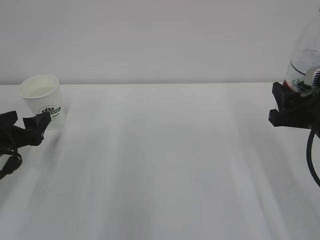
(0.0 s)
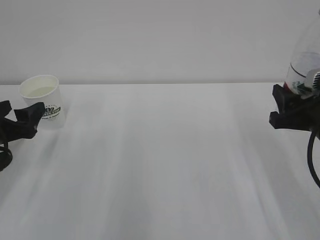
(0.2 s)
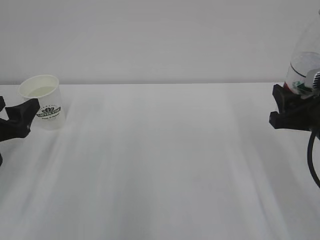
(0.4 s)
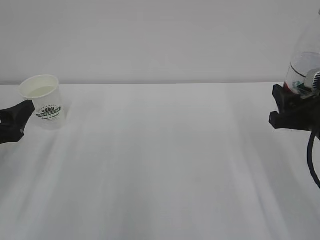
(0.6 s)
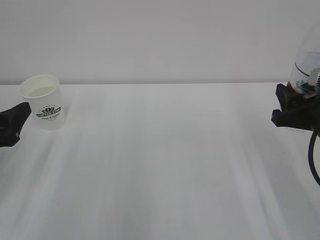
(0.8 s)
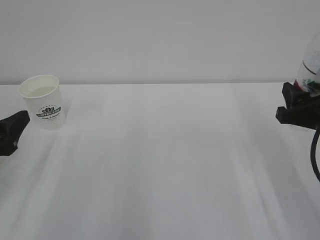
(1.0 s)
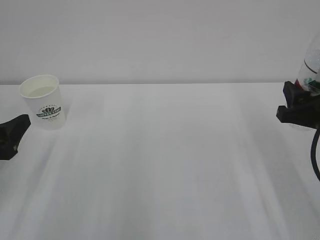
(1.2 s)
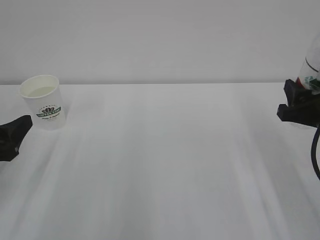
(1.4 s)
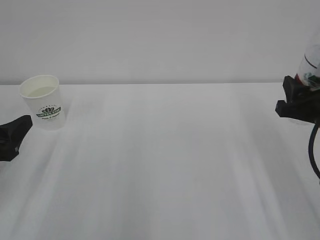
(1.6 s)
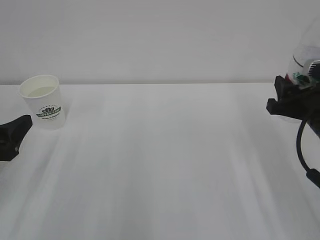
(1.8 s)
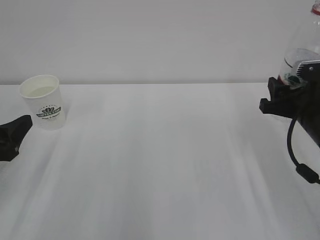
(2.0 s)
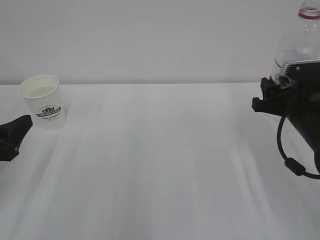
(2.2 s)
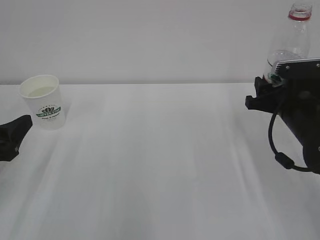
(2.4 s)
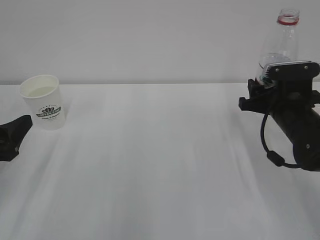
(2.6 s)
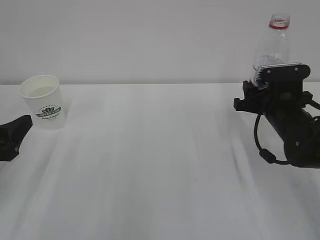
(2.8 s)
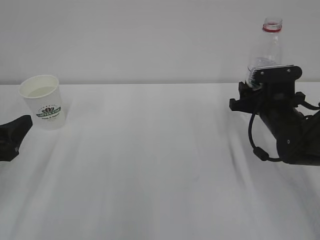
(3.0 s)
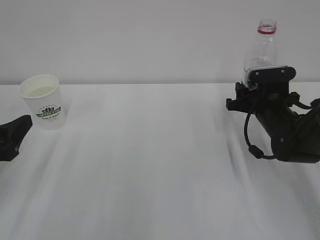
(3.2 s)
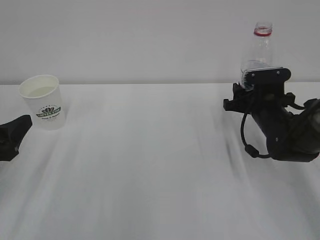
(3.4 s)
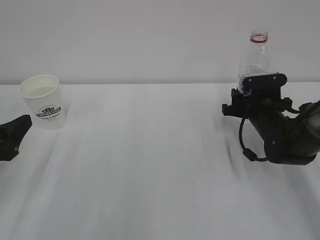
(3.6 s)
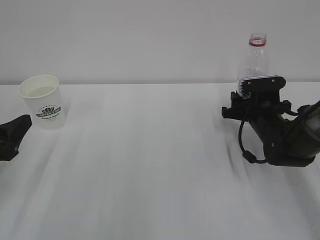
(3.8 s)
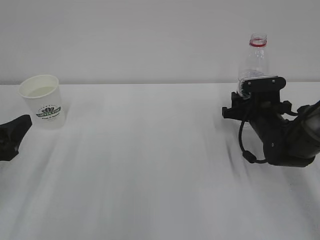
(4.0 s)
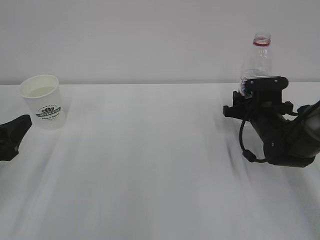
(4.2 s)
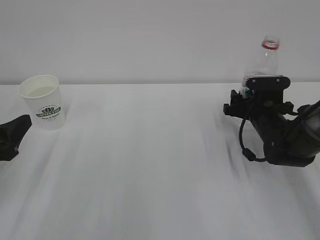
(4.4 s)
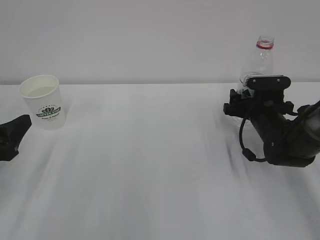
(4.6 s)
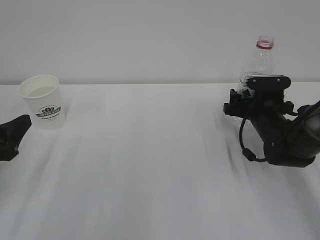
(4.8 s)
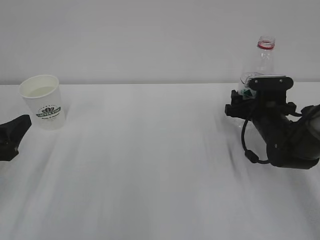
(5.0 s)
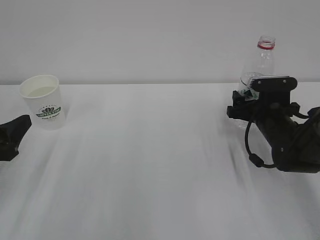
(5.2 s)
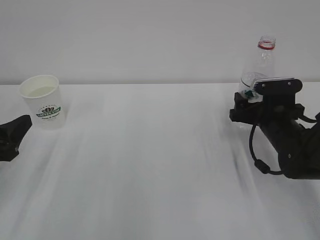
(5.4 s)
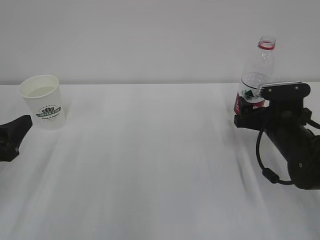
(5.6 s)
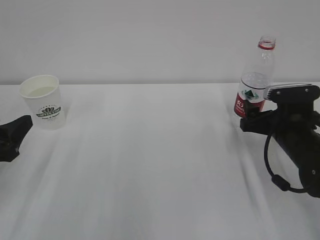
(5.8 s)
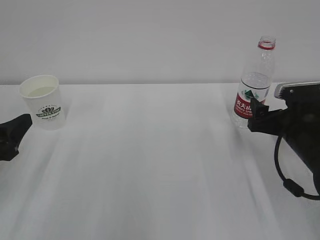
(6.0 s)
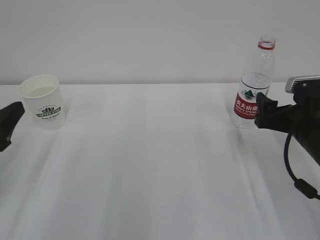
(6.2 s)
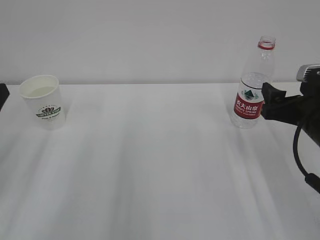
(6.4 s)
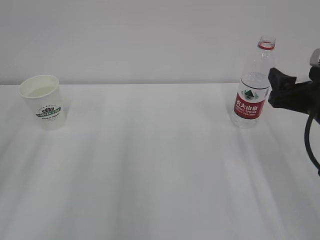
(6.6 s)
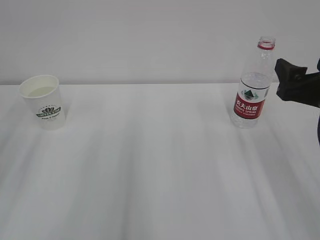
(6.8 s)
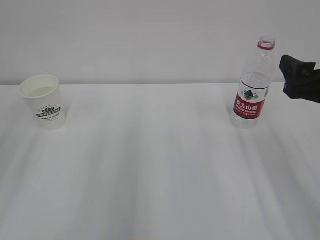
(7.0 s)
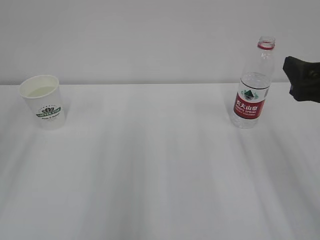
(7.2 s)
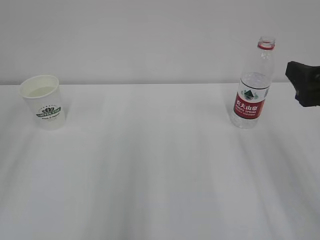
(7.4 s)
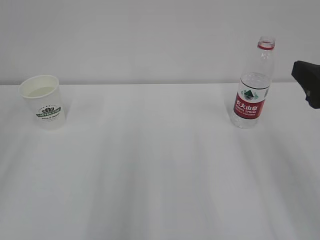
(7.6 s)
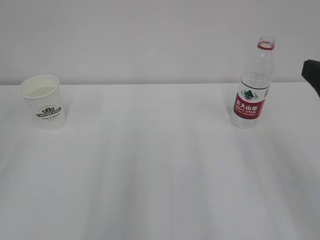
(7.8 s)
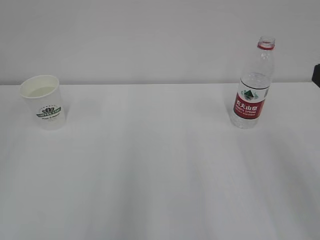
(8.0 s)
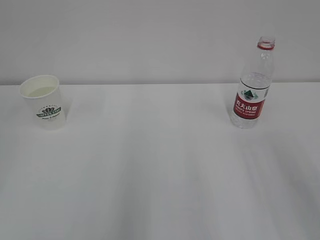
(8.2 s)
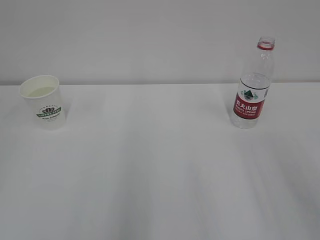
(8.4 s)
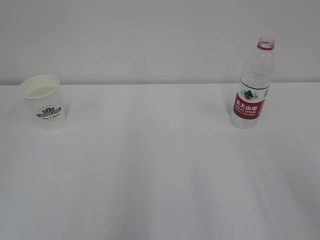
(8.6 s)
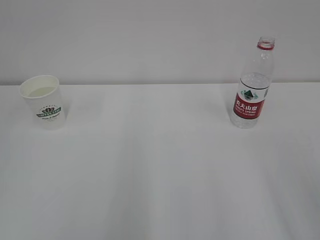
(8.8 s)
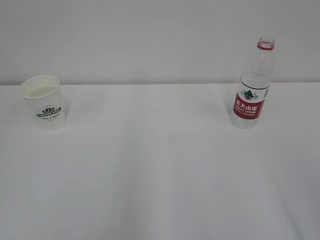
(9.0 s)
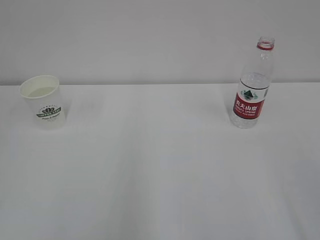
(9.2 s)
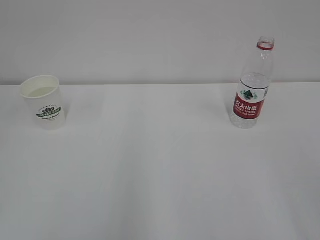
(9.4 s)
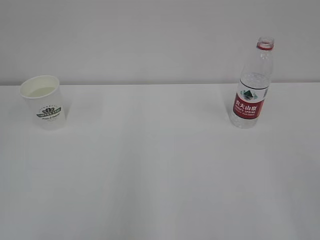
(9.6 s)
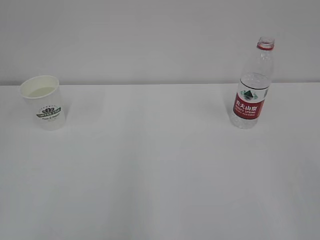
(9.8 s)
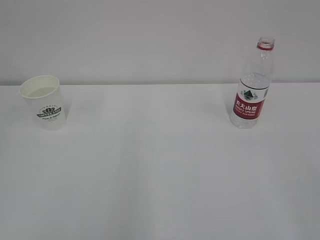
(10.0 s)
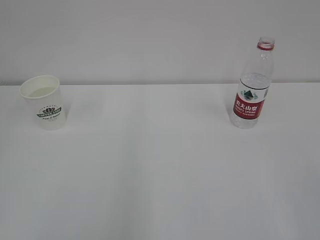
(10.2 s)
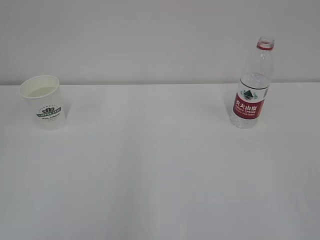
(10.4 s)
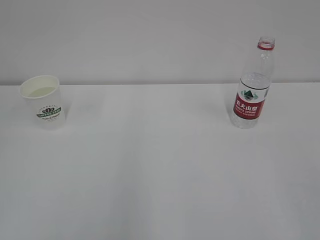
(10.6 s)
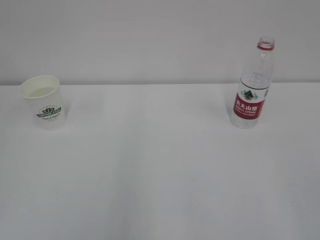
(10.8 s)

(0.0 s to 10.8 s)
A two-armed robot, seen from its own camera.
0.0 s - 1.6 s: The left gripper is displaced backward by some 5 cm.
1.6 s - 3.0 s: The right gripper shifts some 15 cm forward and downward.
3.0 s - 4.6 s: The right gripper opens its fingers.
4.6 s - 6.2 s: The right gripper goes roughly 10 cm backward and upward.
6.2 s - 7.8 s: The two grippers go roughly 15 cm upward and backward.

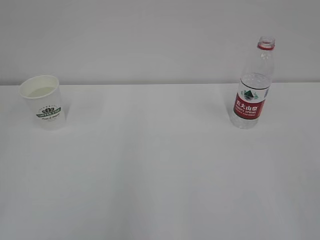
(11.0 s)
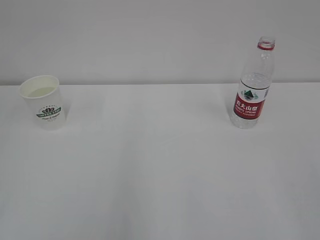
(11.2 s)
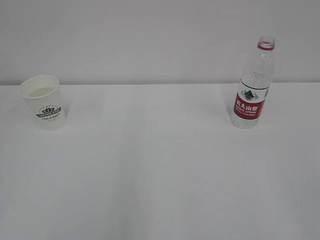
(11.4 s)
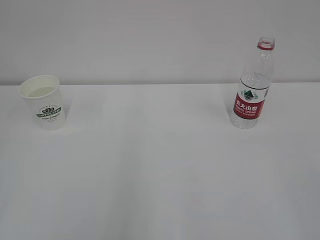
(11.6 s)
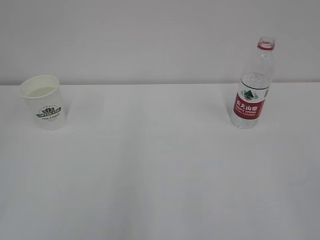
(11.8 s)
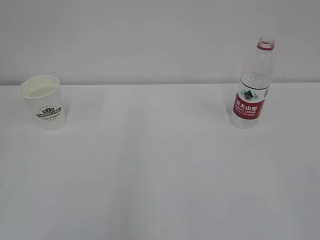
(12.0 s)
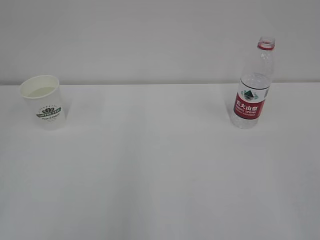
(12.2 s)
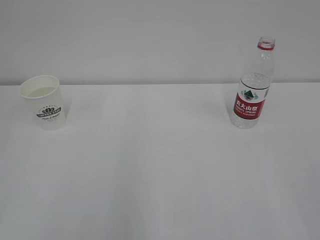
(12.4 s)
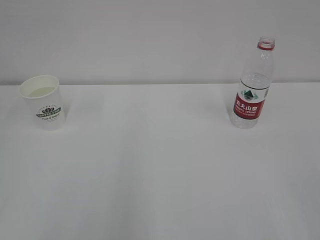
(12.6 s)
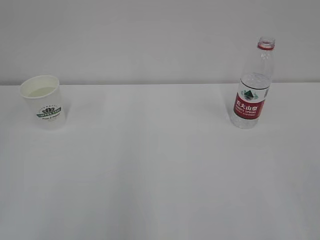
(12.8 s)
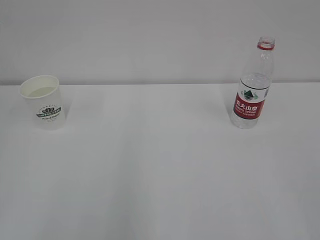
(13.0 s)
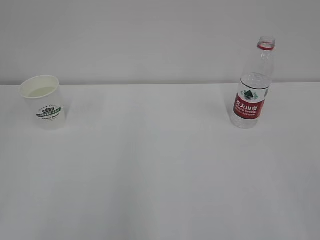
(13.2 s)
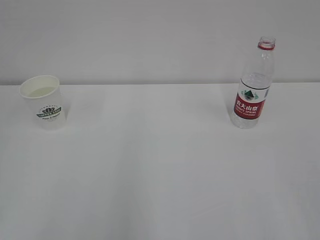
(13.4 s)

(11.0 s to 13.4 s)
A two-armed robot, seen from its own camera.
11.0 s - 12.2 s: Both grippers stay about where they are.
